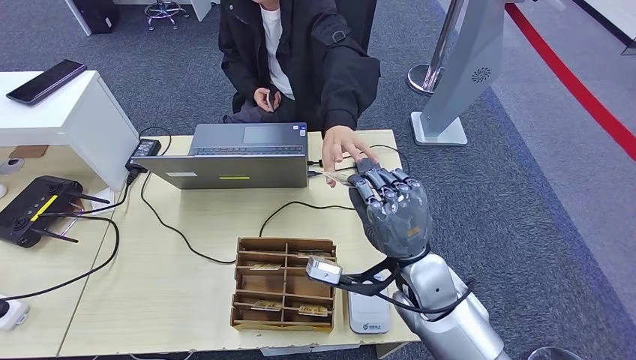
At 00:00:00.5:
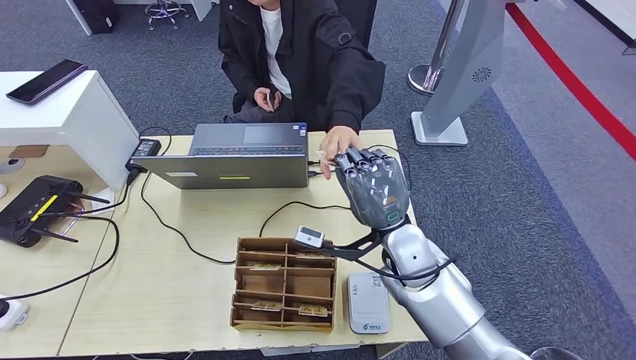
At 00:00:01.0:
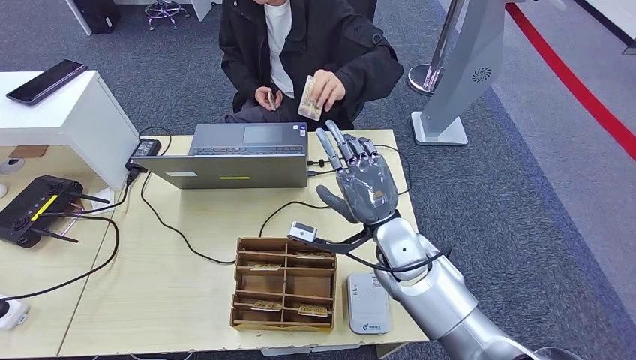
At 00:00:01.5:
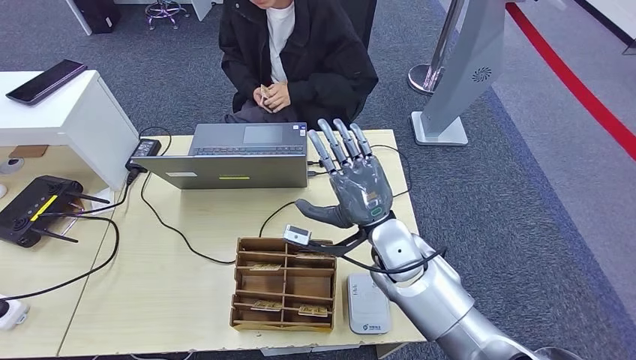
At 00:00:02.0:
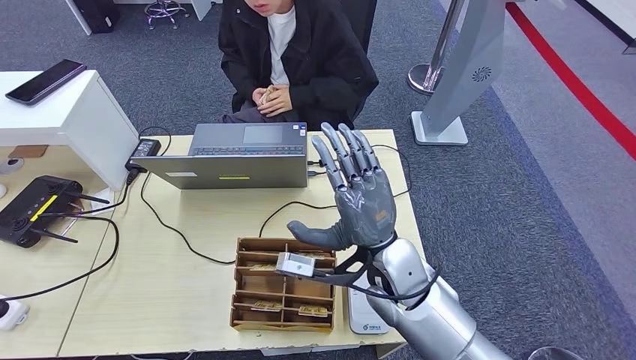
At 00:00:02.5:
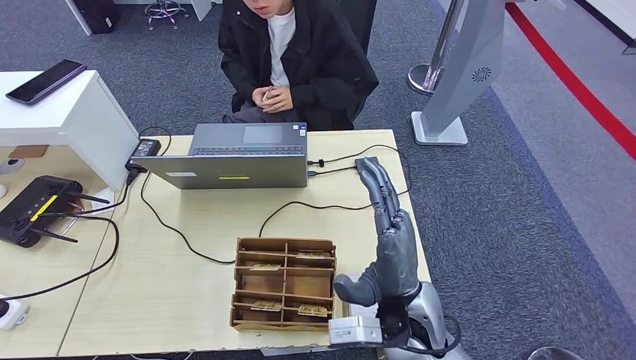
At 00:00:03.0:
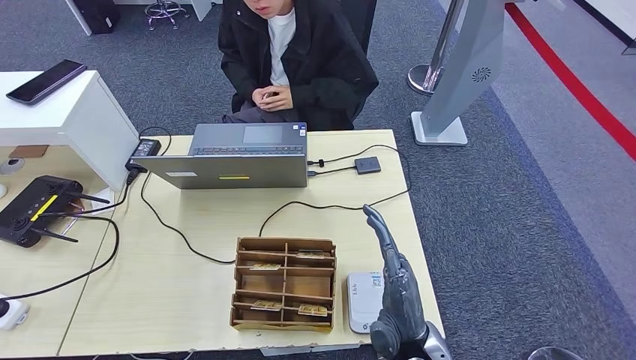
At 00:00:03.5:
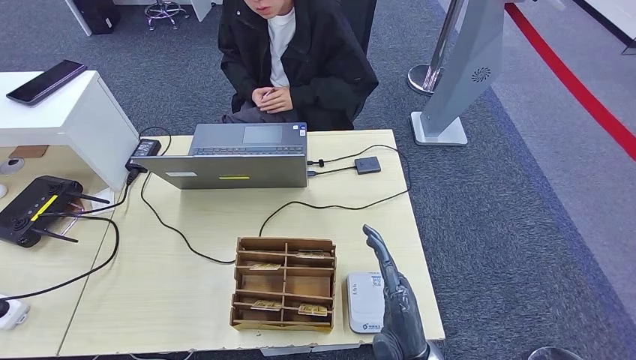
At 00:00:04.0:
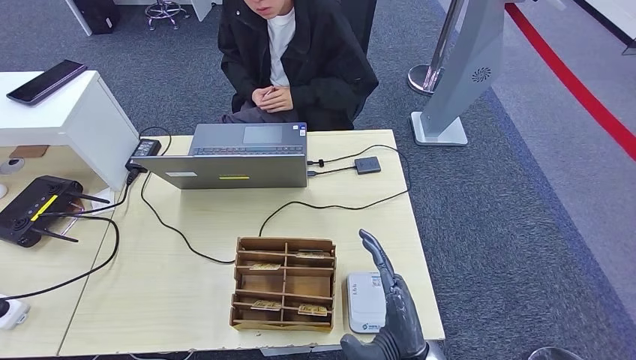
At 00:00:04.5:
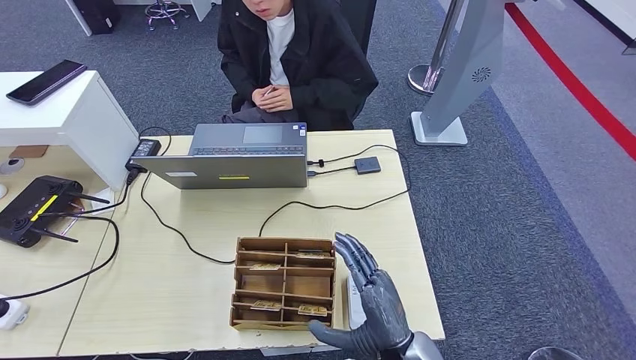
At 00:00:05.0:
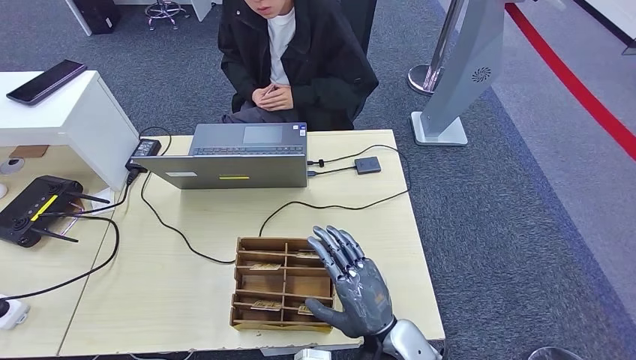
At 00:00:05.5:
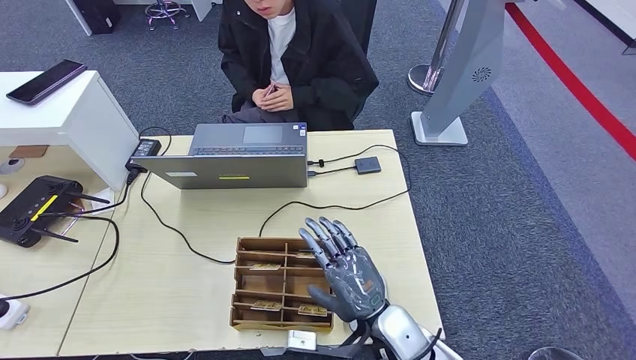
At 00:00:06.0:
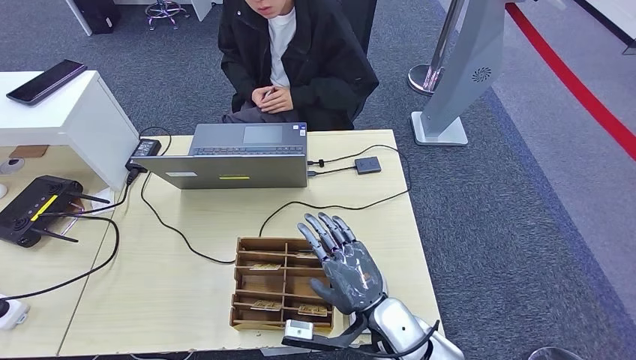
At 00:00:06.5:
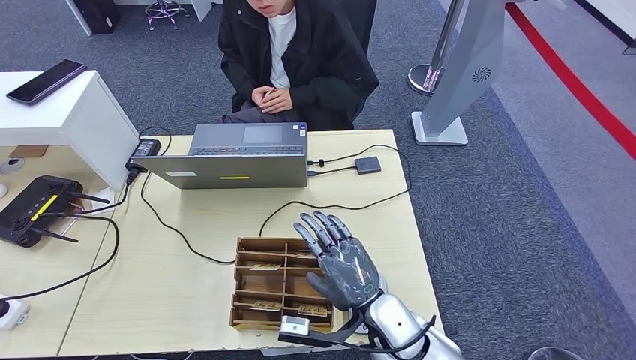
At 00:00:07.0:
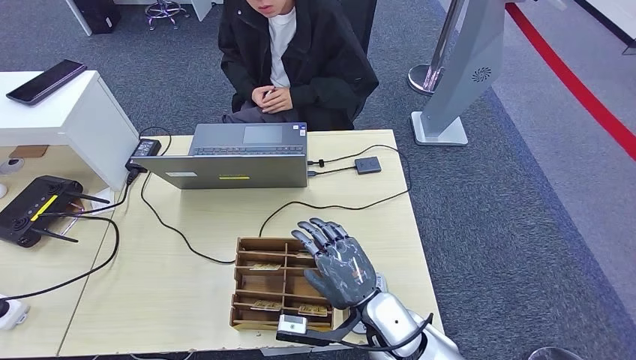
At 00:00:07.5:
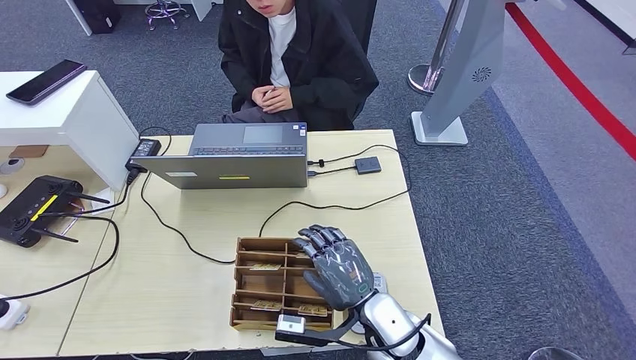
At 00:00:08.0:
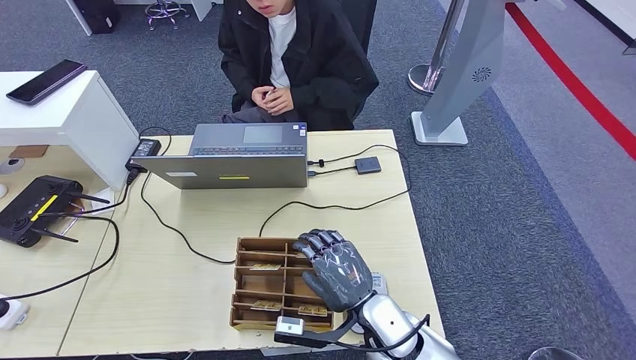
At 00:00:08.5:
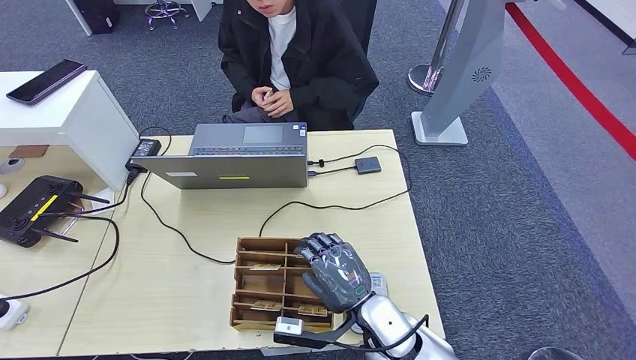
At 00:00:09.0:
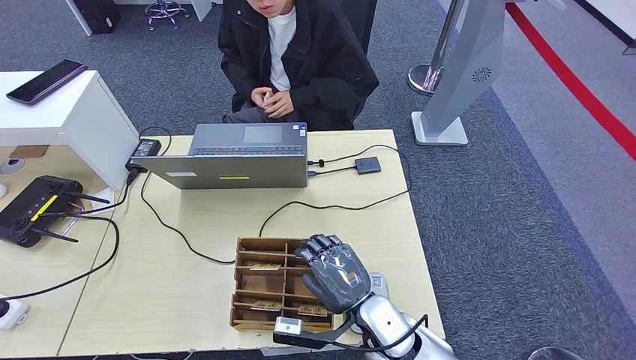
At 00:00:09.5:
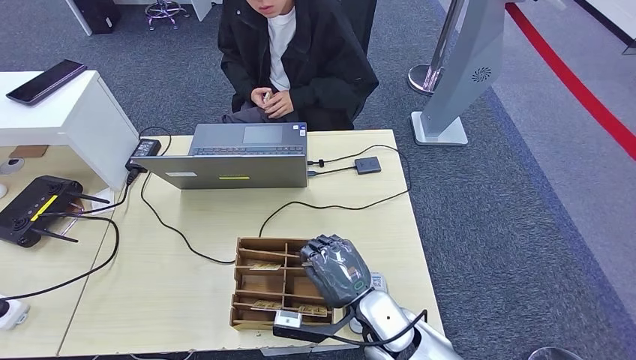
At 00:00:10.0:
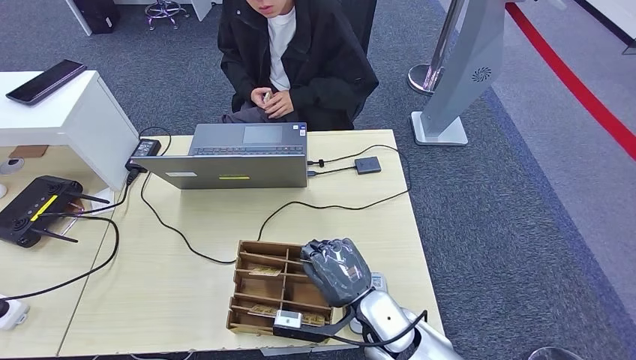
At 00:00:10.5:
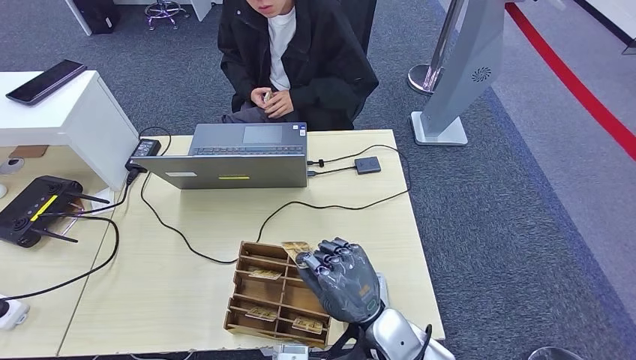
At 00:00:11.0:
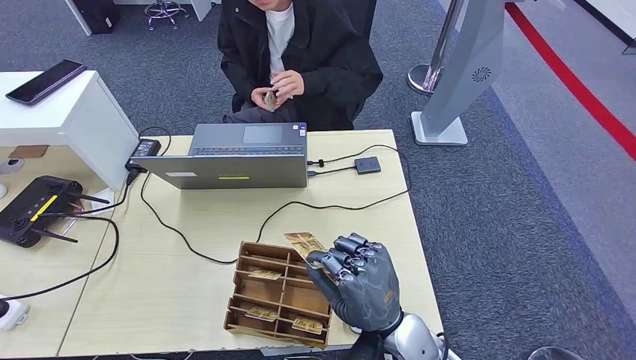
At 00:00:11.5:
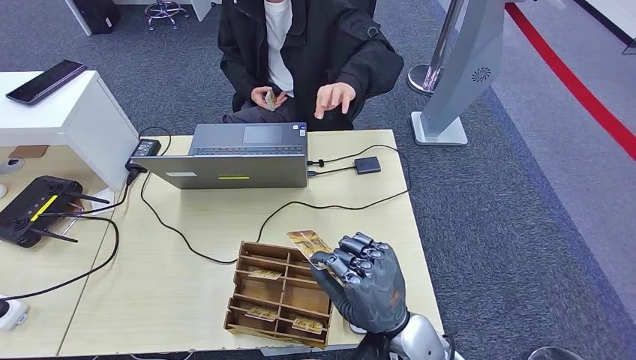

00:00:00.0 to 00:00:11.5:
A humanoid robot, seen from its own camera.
Step, 00:00:00.0 to 00:00:01.5: Hand the ID card to the person.
Step, 00:00:09.5 to 00:00:11.0: Pick up the room key from the key card box.
00:00:00.0 to 00:00:02.0: The hands stay close to where they were, moving slightly.
00:00:02.0 to 00:00:04.0: The right hand is displaced backward and downward by about 15 cm.
00:00:04.0 to 00:00:06.0: The right hand travels forward by roughly 5 cm.
00:00:06.0 to 00:00:07.5: Both hands stay about where they are.
00:00:07.5 to 00:00:09.5: Both hands stay about where they are.
00:00:09.5 to 00:00:11.5: The right hand heads upward, covering approximately 5 cm.

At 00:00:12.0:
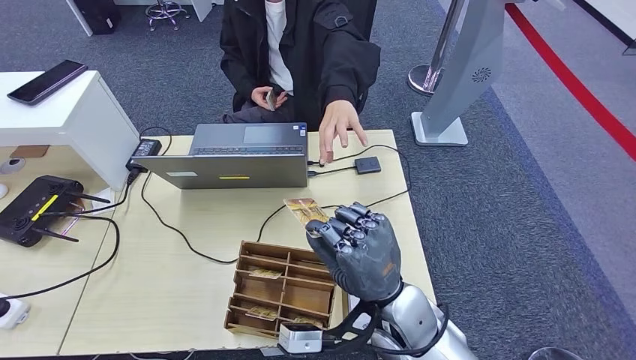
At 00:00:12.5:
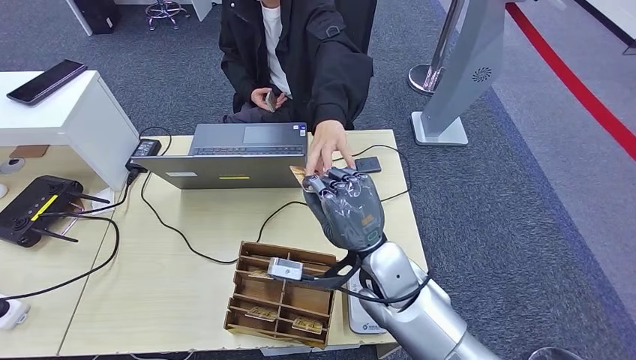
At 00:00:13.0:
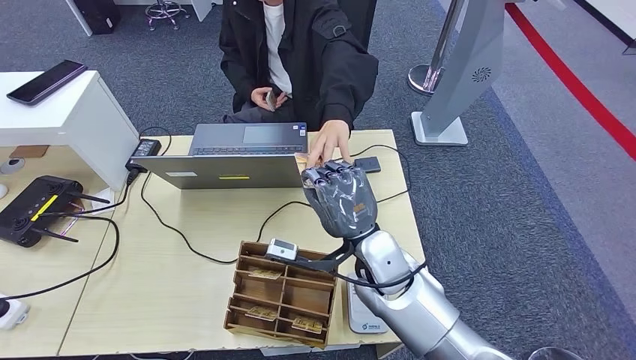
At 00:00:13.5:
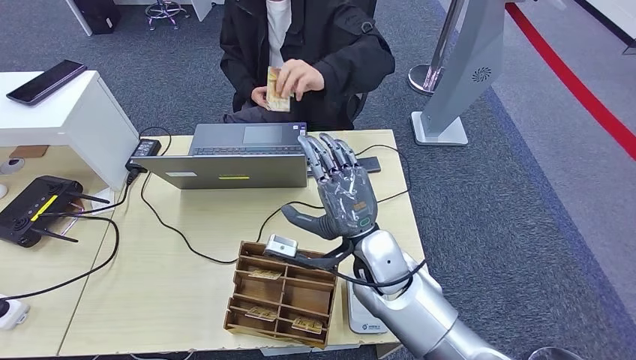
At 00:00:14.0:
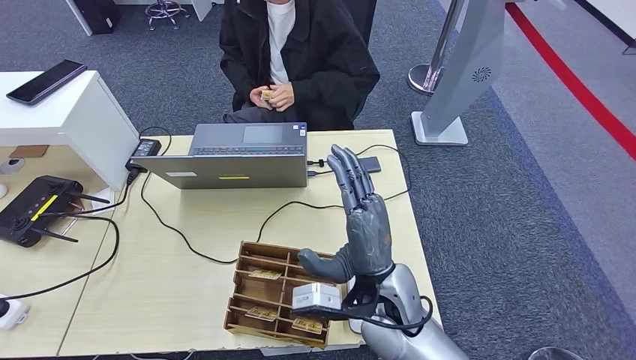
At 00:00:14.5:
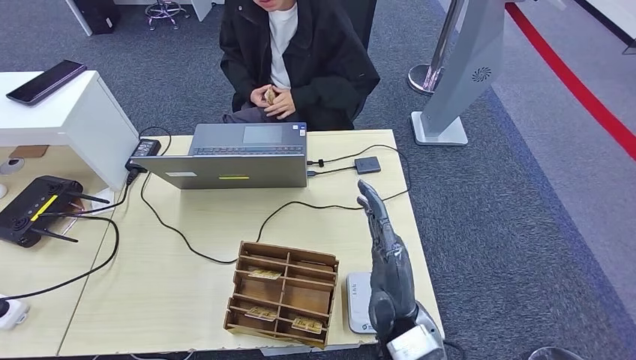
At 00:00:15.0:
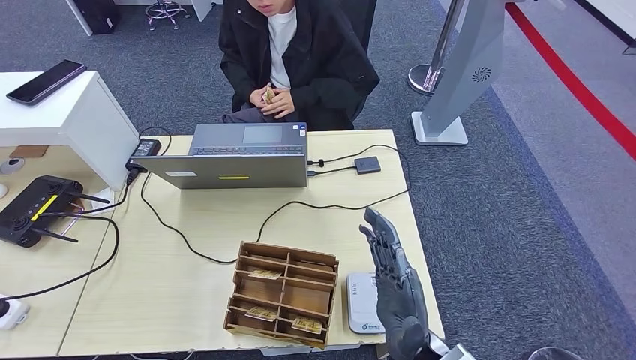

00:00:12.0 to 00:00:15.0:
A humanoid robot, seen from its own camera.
Step, 00:00:12.0 to 00:00:15.0: Hand the room key to the person.
00:00:12.0 to 00:00:13.5: The right hand is displaced forward by about 5 cm.
00:00:13.5 to 00:00:15.0: The right hand moves backward, approximately 15 cm.
